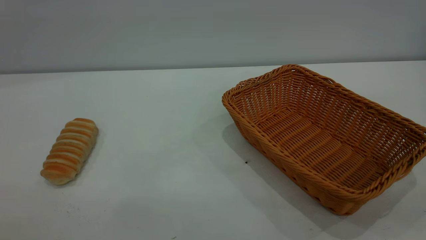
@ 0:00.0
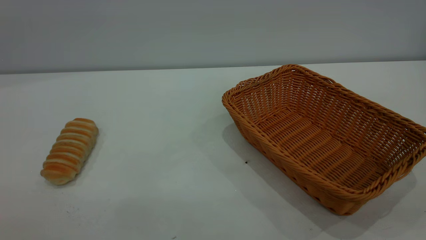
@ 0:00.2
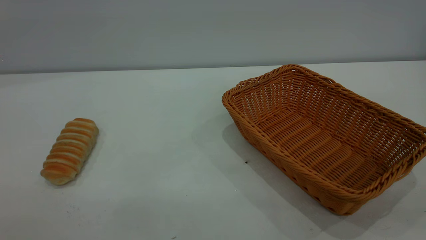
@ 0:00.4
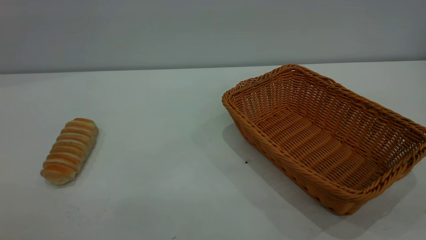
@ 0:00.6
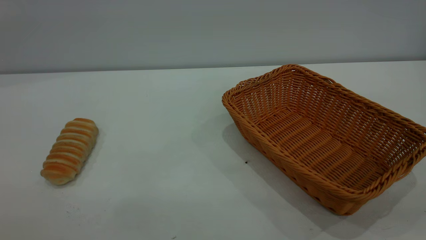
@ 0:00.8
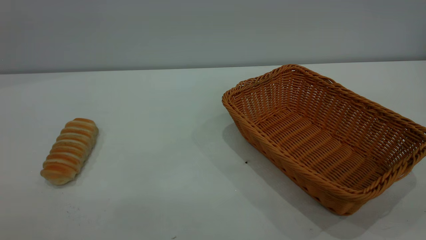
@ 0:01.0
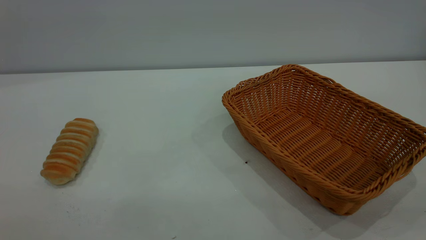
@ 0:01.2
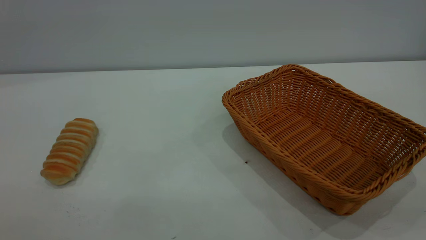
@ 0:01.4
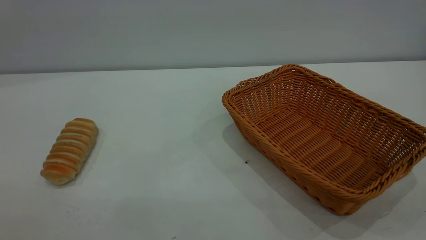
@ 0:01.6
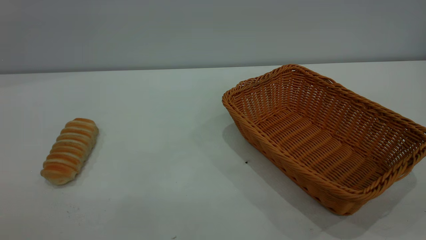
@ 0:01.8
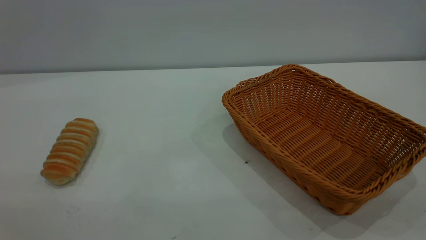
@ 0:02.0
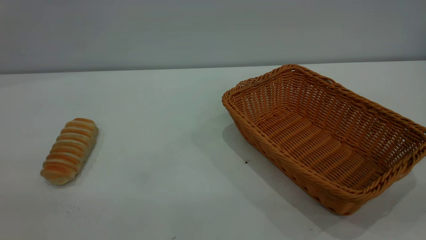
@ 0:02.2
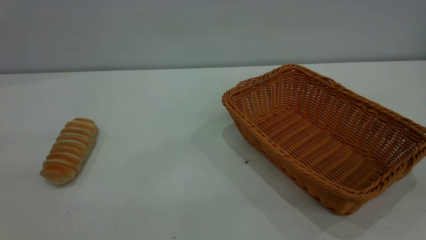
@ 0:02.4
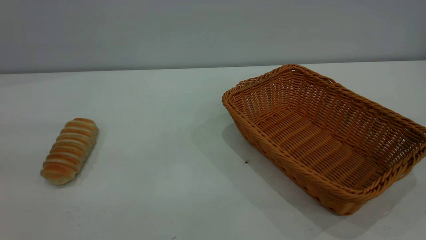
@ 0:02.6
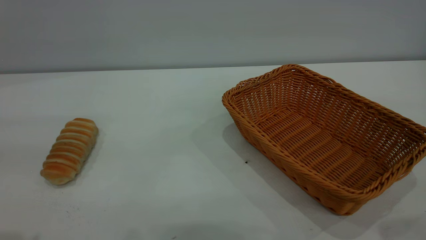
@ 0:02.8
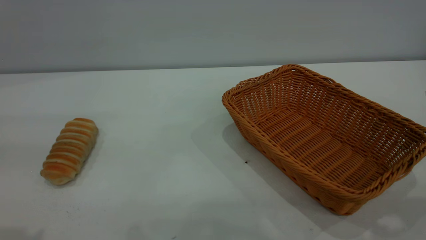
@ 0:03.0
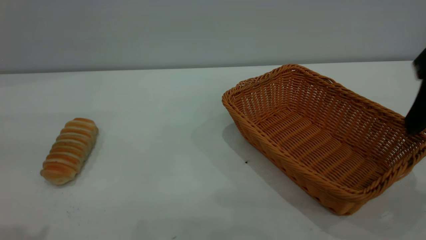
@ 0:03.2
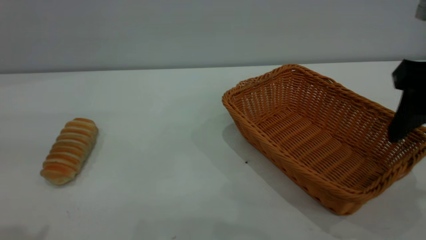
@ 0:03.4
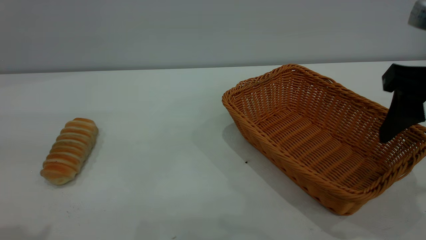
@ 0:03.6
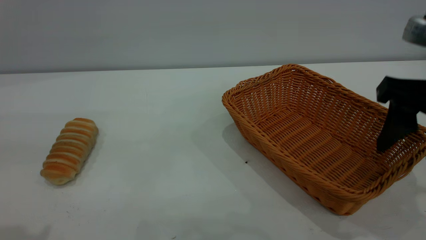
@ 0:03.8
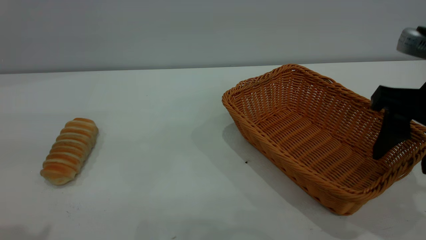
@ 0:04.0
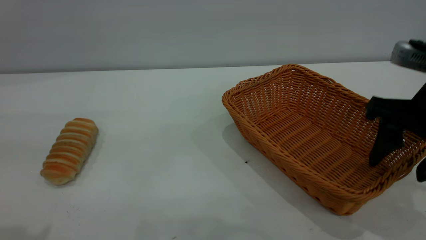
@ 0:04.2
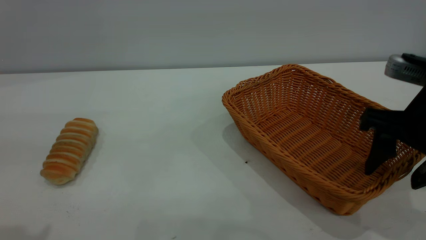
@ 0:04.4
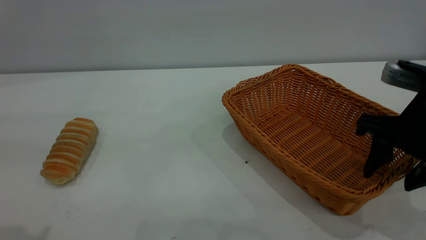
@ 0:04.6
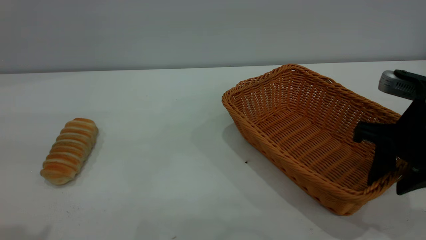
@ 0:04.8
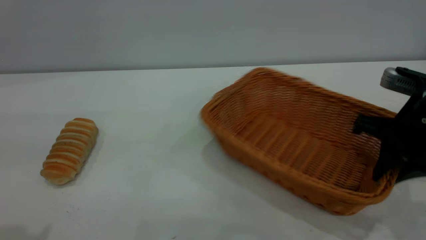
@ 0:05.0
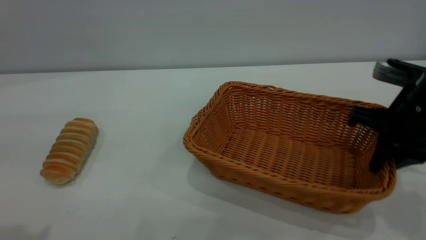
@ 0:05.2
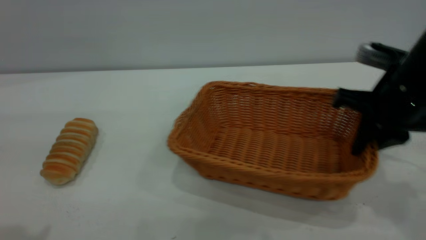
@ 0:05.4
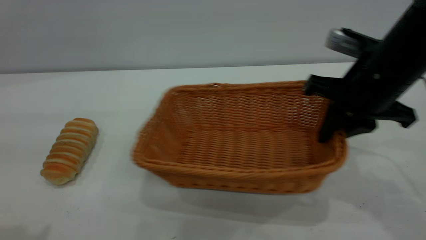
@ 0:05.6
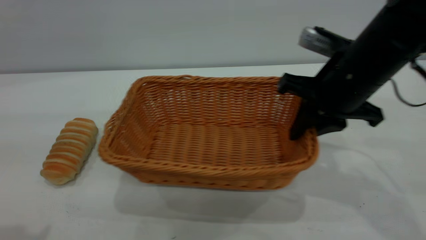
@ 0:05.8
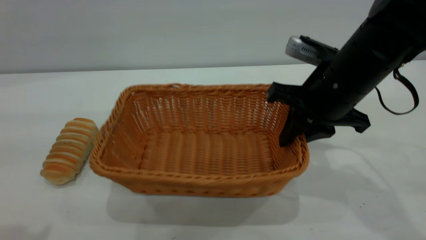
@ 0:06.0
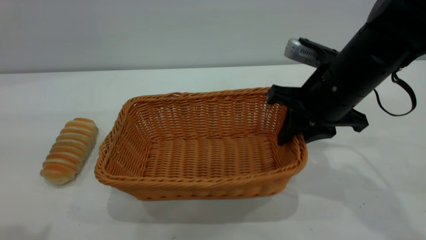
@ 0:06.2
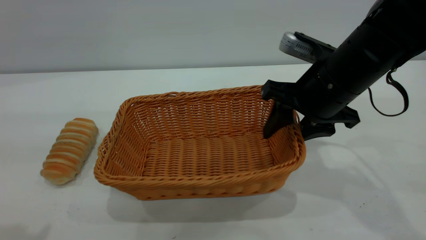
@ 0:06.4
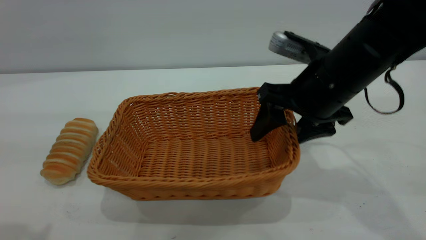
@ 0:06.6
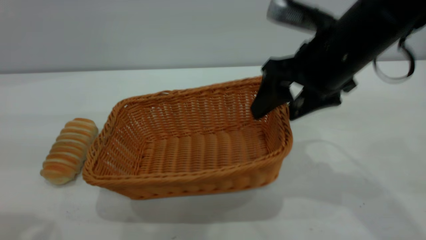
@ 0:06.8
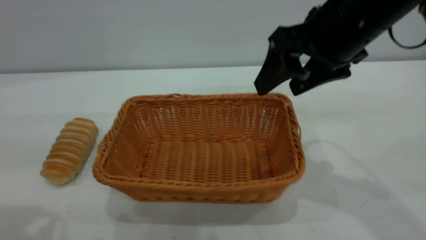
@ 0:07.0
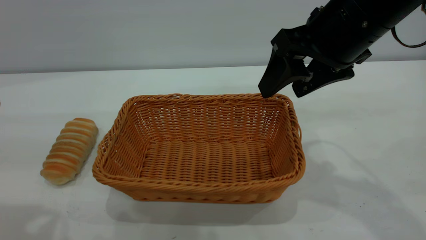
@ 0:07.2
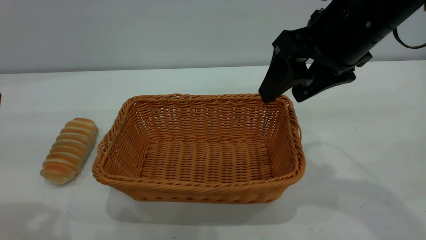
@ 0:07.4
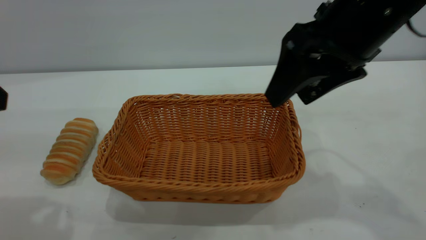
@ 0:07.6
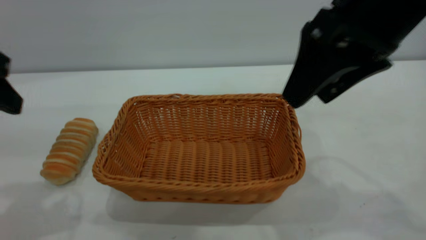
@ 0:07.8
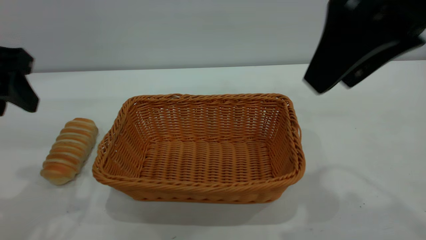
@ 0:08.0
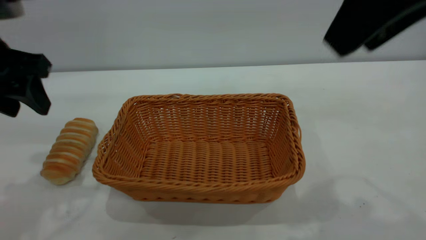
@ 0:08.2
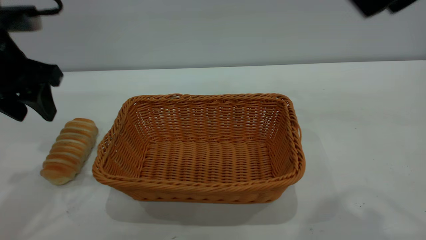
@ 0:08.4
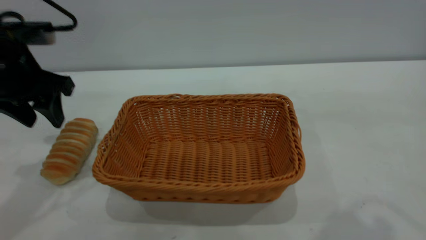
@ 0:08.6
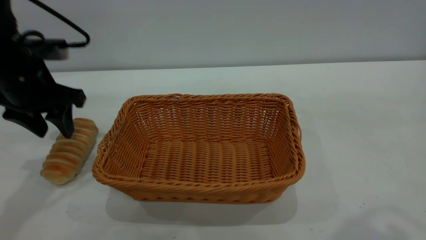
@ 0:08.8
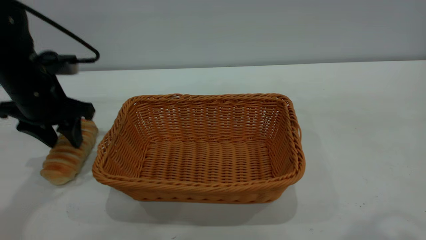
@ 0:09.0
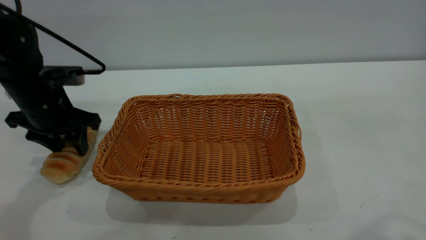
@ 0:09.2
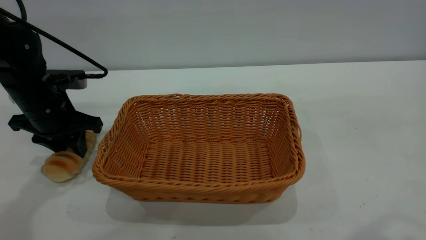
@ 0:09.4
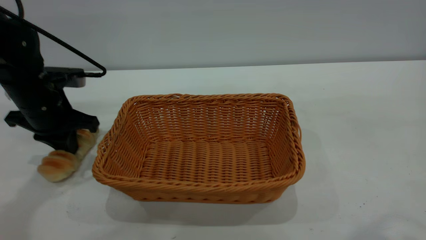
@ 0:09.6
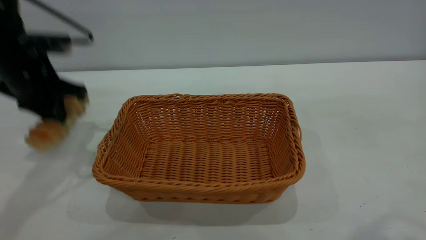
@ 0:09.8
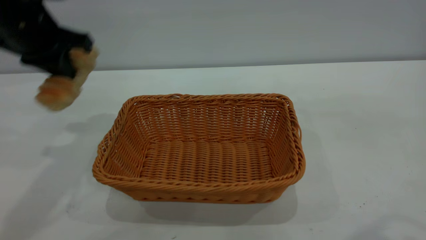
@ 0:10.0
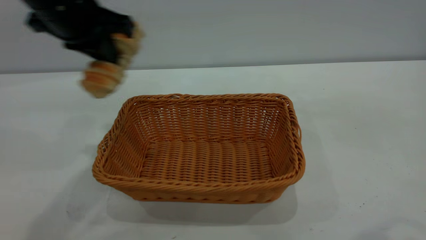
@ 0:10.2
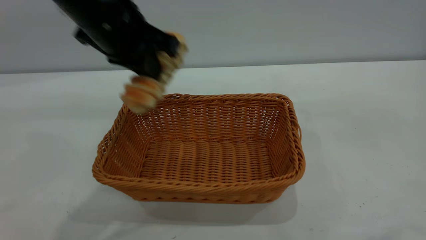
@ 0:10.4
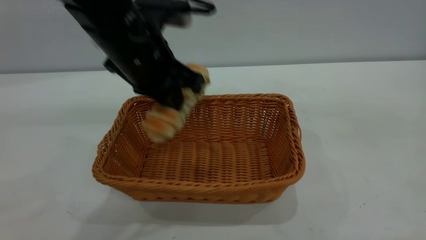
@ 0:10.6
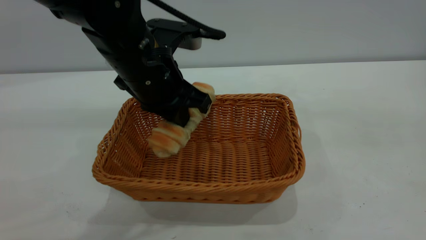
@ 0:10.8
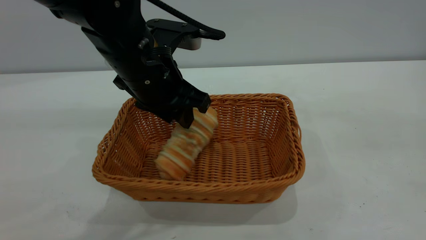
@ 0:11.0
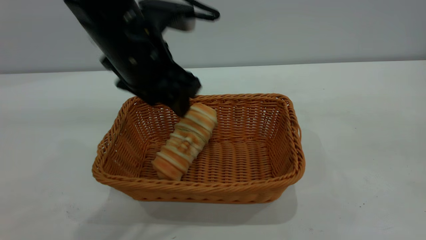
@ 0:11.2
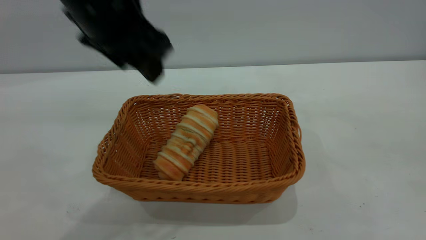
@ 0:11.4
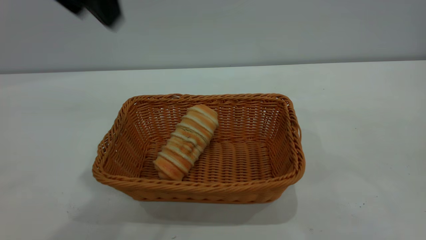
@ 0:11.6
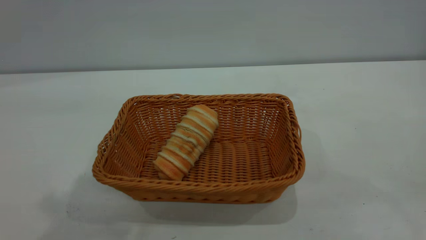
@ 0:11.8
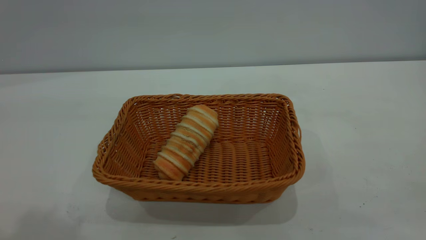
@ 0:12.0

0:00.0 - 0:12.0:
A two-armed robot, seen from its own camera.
Task of the whole recording: One hand grasps the yellow basket and places it in the middle of the table, while the other hand picks up the long bread and puts it into the yellow basket.
Step, 0:00.0 - 0:07.6: Move the basket to the center of view.
Step, 0:10.0 - 0:11.2: place the bread into the basket.
0:03.0 - 0:04.4: The right gripper is displaced downward and forward by roughly 15 cm.
0:04.4 - 0:06.0: The right gripper is displaced to the left and forward by some 10 cm, and closes.
0:06.0 - 0:07.6: The left gripper travels forward by approximately 5 cm; the right gripper travels upward by approximately 10 cm, and opens.
0:07.6 - 0:09.0: The left gripper travels forward and downward by some 20 cm. Meanwhile the right gripper heads upward and backward, covering some 20 cm.
0:09.0 - 0:10.4: The left gripper goes approximately 20 cm to the right and upward, and closes.
0:10.4 - 0:12.0: The right gripper is displaced backward, to the right and downward by approximately 15 cm; the left gripper is displaced upward, backward and to the left by about 30 cm, and opens up.

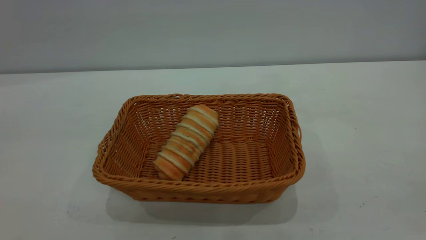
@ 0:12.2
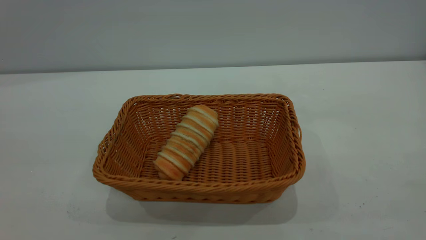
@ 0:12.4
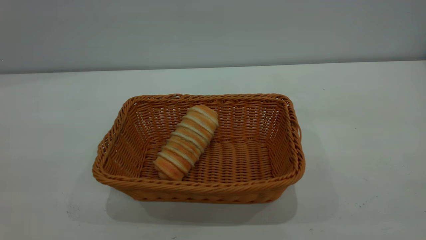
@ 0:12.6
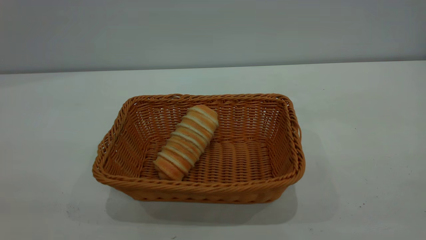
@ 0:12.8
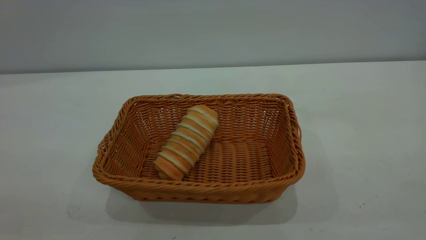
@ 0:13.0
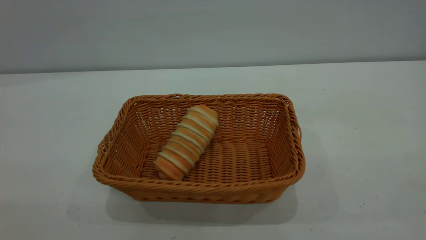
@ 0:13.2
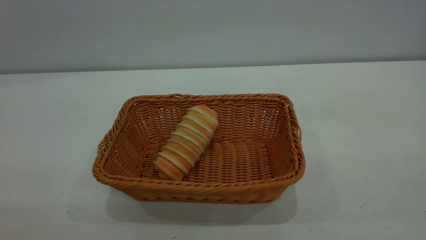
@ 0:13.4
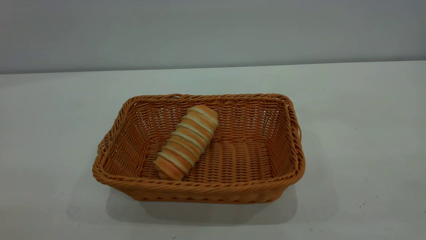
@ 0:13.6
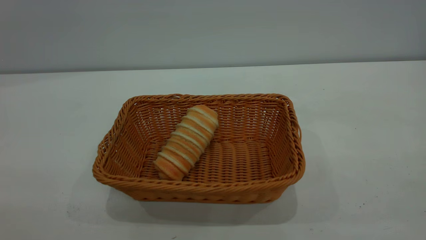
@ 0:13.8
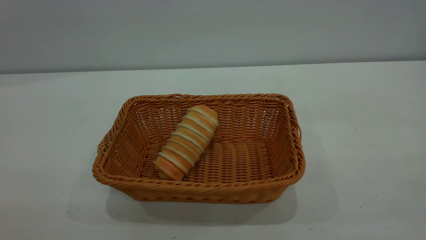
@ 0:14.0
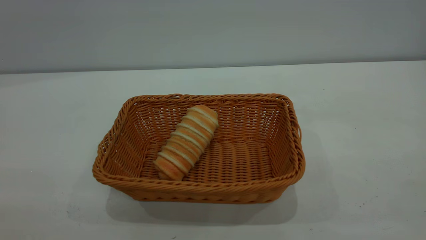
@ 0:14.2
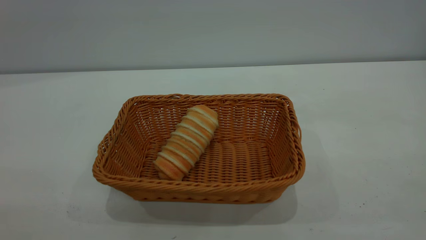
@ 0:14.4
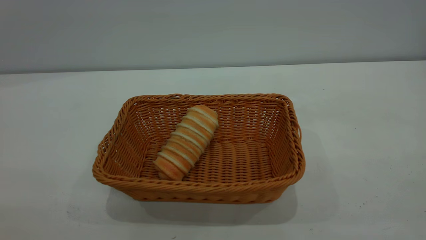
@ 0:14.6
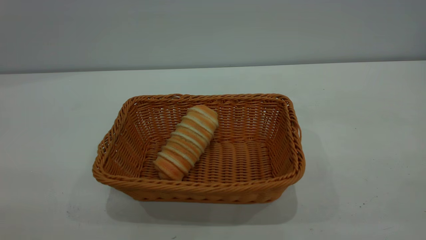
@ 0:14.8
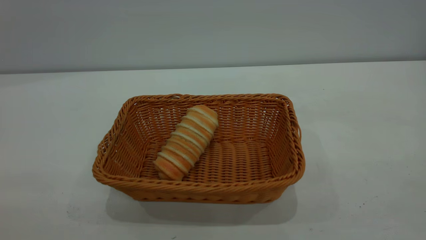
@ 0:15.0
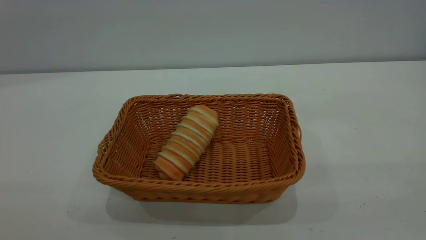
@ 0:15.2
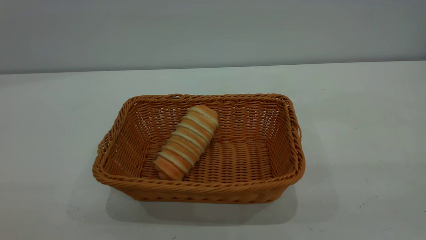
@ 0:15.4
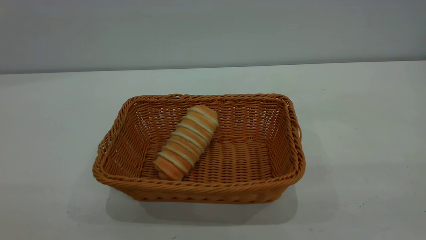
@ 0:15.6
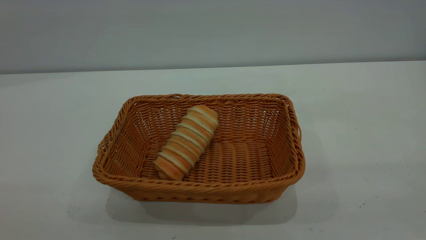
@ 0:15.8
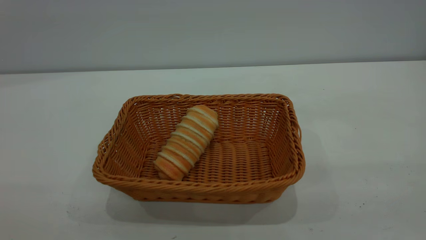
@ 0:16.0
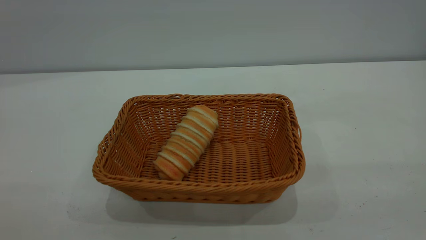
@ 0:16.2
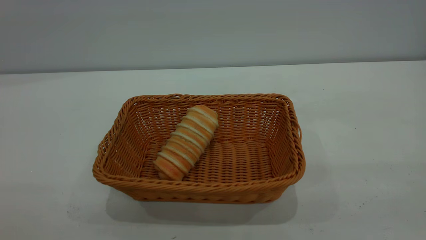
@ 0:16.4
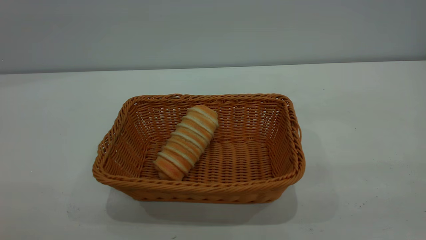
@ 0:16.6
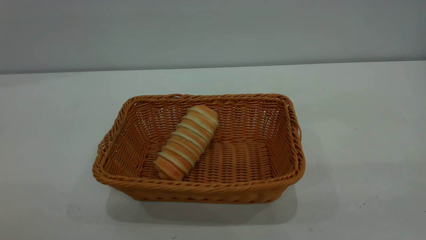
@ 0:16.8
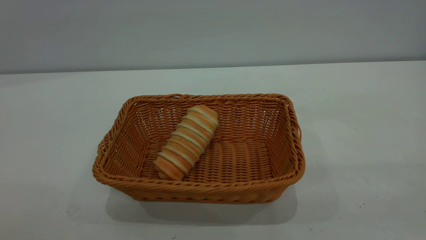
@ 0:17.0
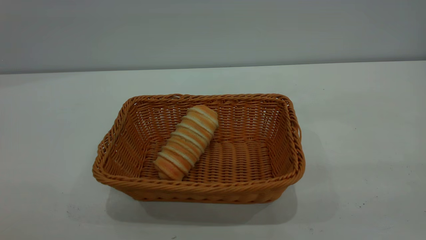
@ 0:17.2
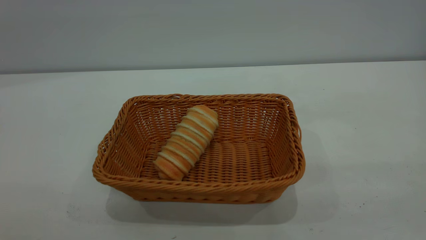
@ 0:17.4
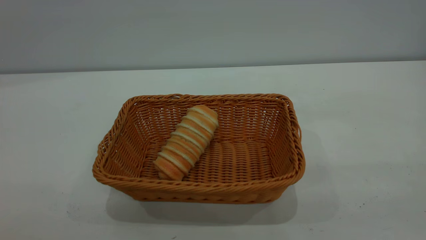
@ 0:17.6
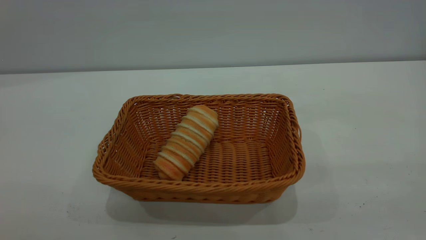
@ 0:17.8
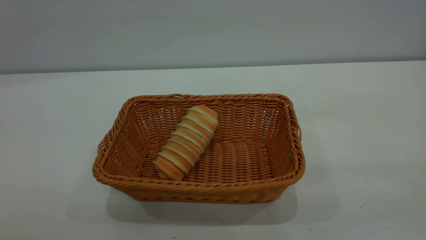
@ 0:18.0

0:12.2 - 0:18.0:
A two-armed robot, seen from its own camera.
Task of the whole recording: One hand grasps the yellow basket and places it in the middle of the table, while the other hand picks up the long bread and puts it into the yellow basket.
0:16.6 - 0:18.0: Neither gripper changes place.
